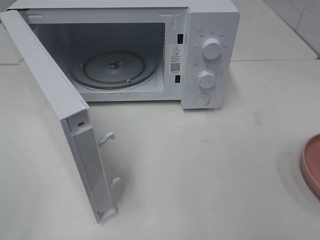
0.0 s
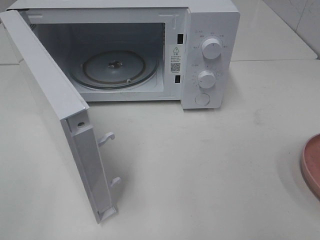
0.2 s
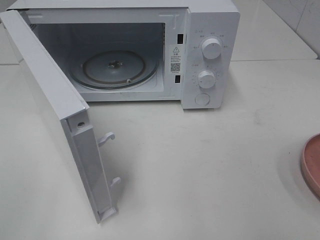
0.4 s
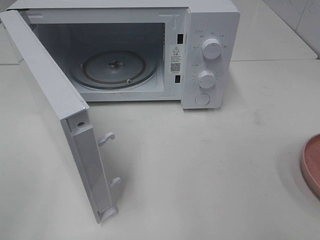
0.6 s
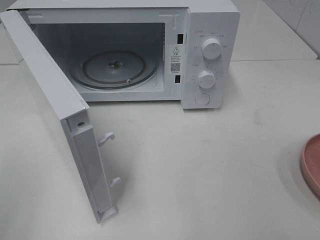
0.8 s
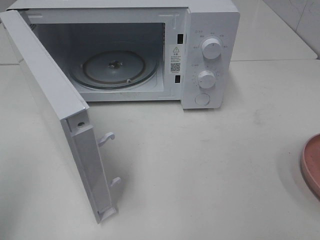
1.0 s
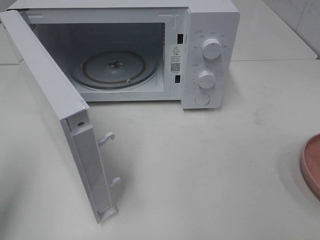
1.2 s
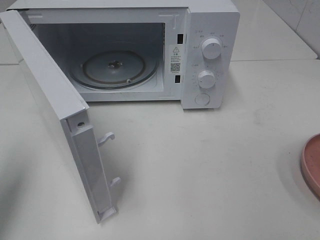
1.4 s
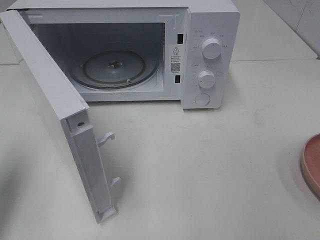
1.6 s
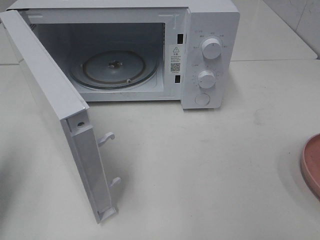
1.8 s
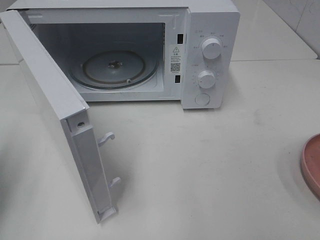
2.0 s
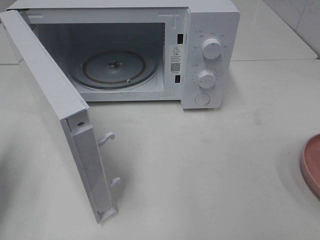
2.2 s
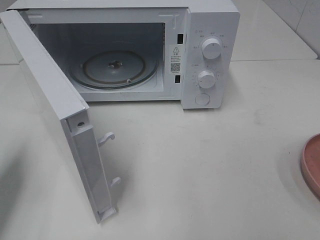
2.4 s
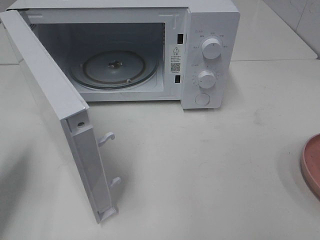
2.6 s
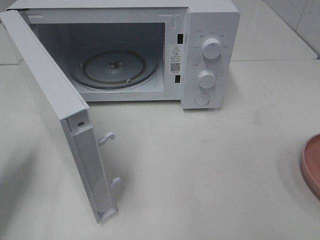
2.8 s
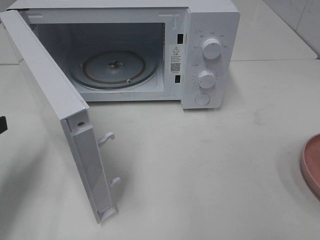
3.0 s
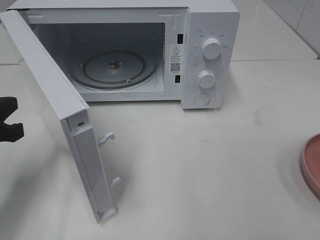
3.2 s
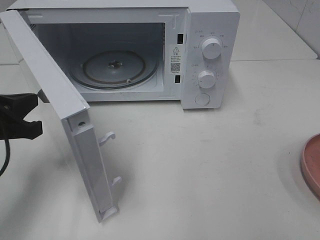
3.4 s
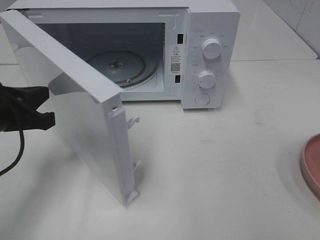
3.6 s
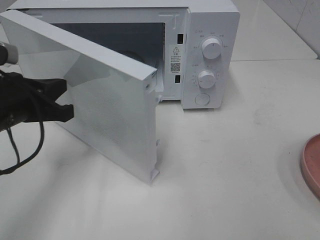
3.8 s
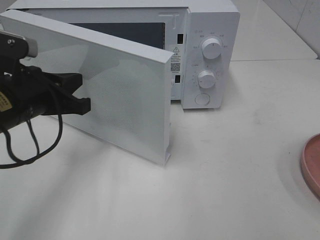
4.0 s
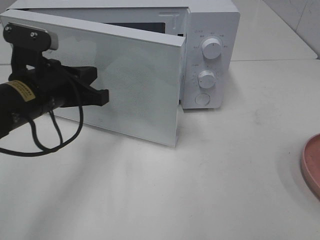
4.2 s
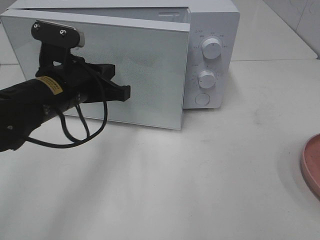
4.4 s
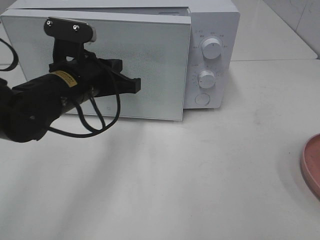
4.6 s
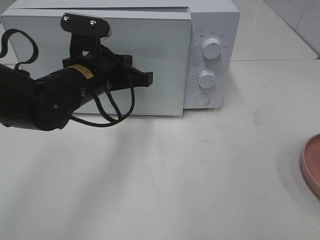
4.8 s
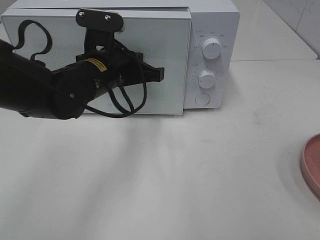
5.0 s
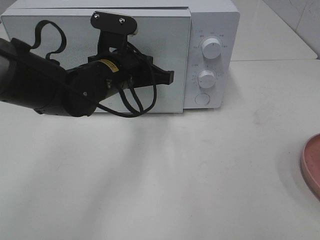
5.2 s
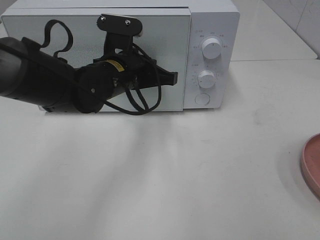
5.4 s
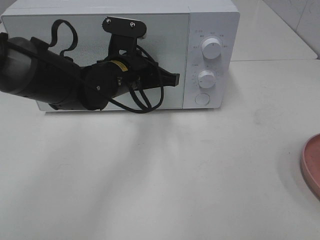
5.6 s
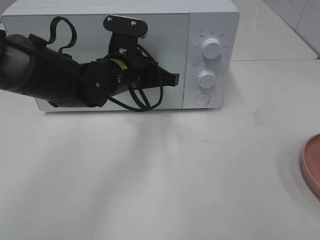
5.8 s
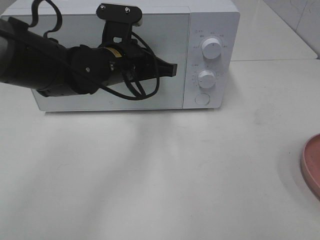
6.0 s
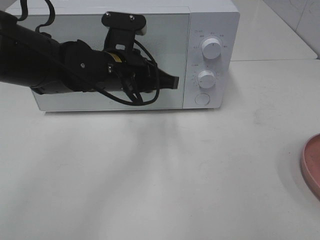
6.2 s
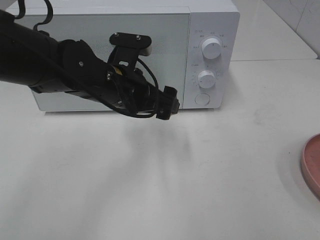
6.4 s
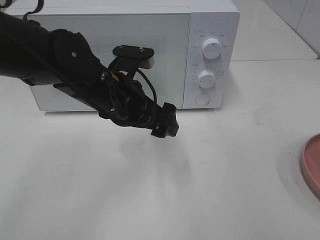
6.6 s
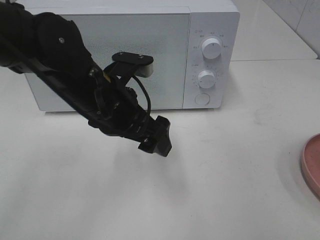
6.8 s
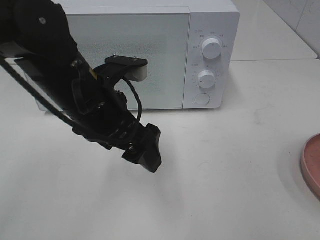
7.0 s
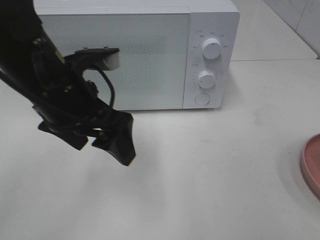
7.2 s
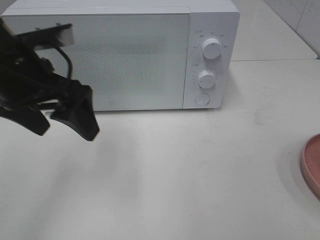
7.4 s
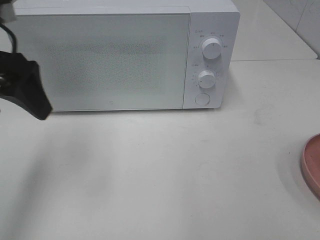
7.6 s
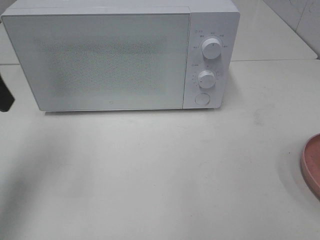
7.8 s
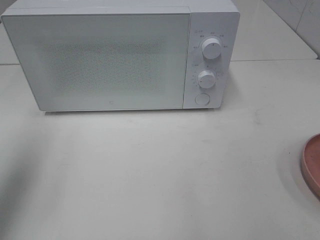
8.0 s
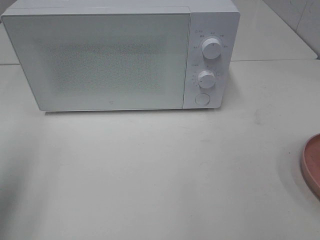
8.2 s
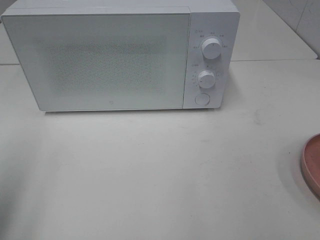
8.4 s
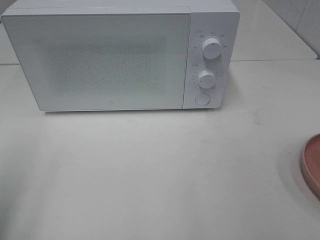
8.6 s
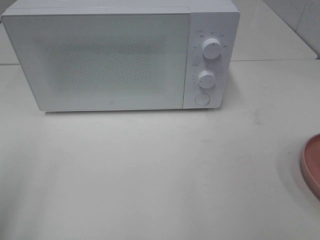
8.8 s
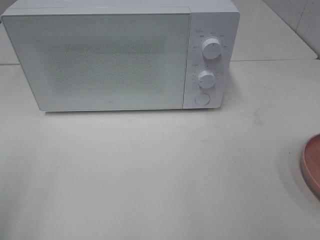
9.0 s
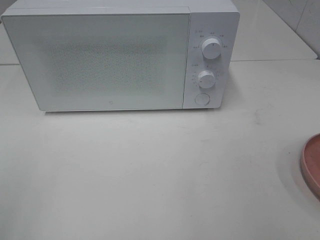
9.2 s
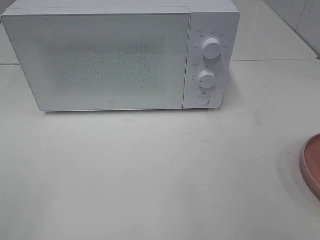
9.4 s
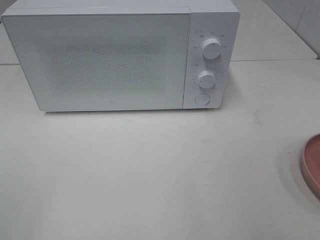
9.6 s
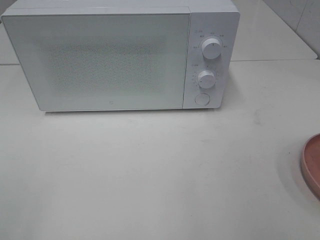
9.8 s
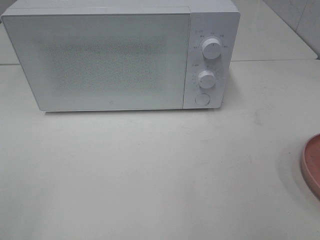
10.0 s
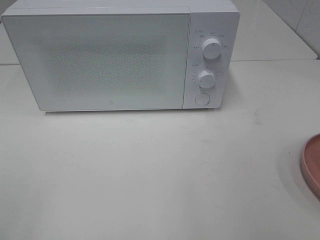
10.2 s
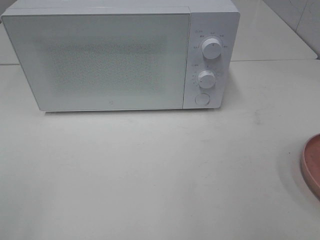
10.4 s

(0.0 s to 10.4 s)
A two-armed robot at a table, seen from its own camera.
Task of the whole recording: Heat the burger.
Step, 0.0 s - 6.0 s: Left hand: close the microwave door.
0.0 s - 1.4 s: The left gripper shifts approximately 15 cm forward, and closes up.
1.4 s - 3.0 s: The left gripper travels downward and forward by about 15 cm.
3.0 s - 4.4 s: The left gripper is displaced to the right and forward by approximately 15 cm.
4.4 s - 6.0 s: The left gripper travels to the right and forward by about 10 cm.
6.0 s - 7.4 s: The left gripper shifts some 15 cm to the left, backward and upward, and opens its fingers.
7.4 s - 9.0 s: The left gripper travels backward and to the left by some 25 cm.

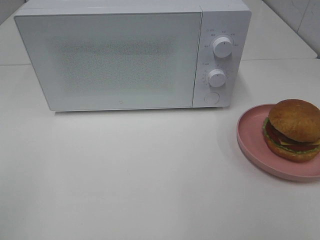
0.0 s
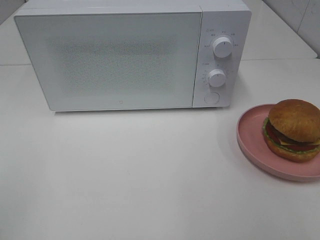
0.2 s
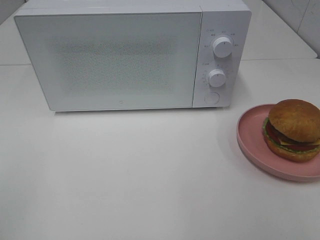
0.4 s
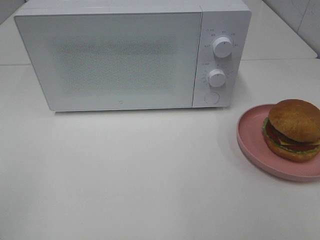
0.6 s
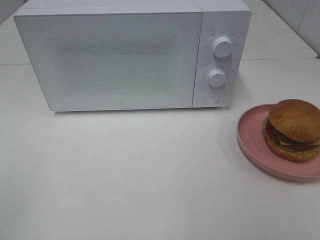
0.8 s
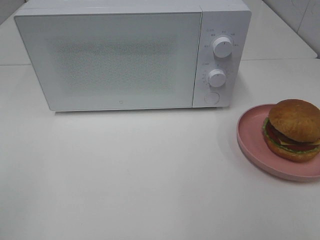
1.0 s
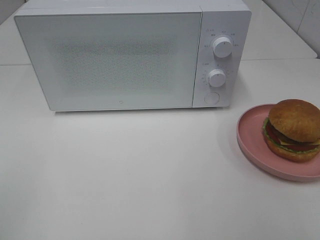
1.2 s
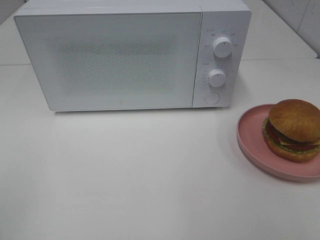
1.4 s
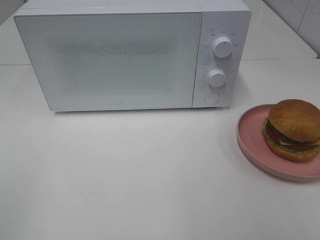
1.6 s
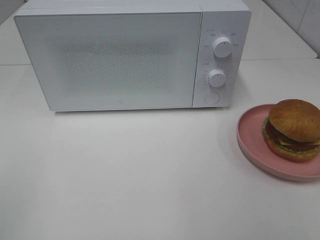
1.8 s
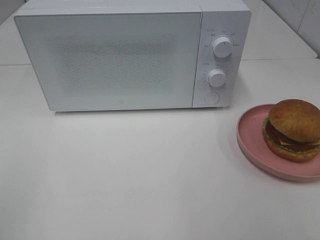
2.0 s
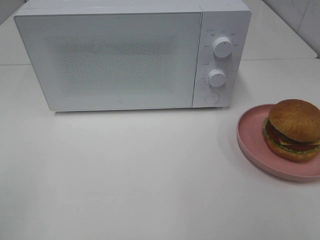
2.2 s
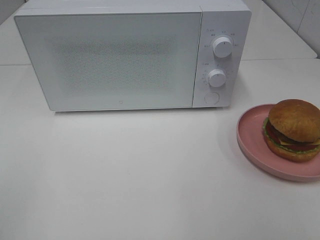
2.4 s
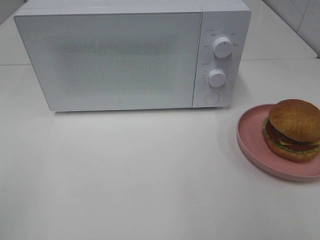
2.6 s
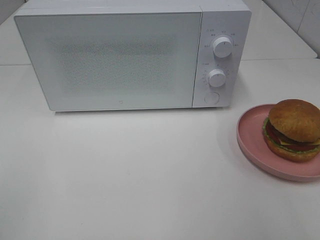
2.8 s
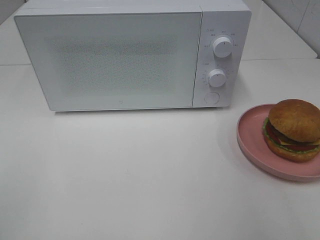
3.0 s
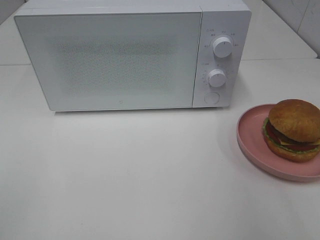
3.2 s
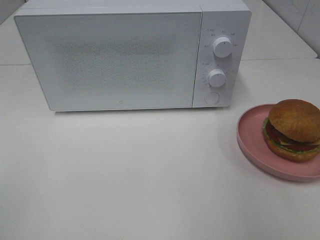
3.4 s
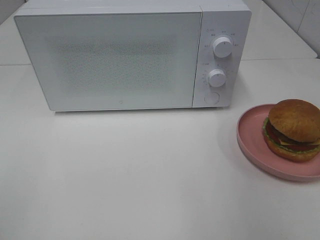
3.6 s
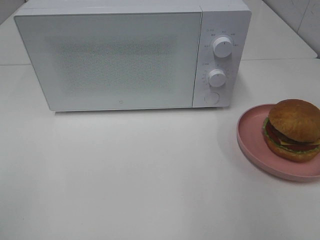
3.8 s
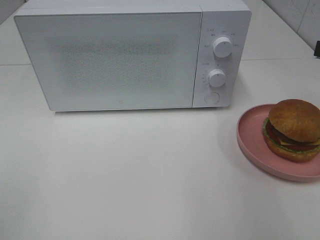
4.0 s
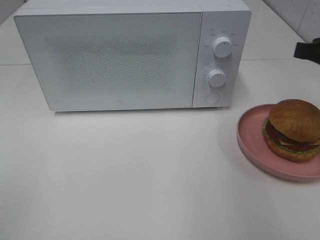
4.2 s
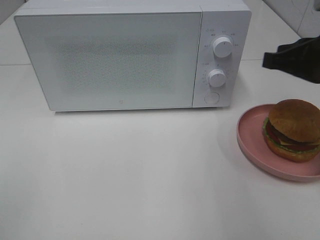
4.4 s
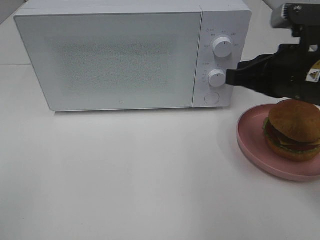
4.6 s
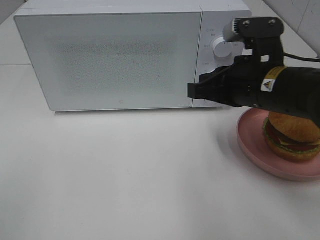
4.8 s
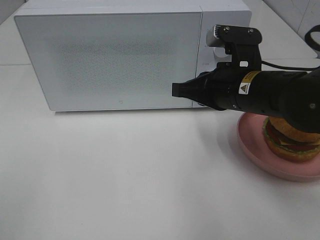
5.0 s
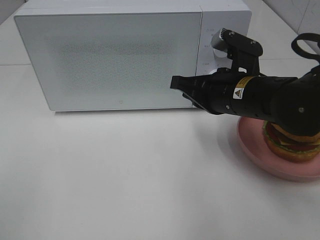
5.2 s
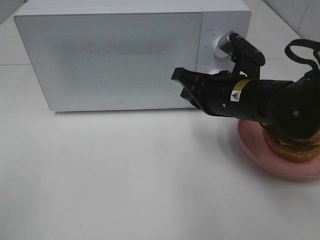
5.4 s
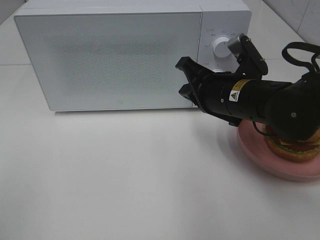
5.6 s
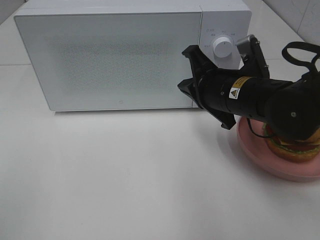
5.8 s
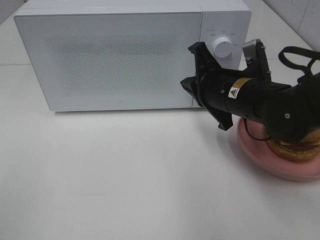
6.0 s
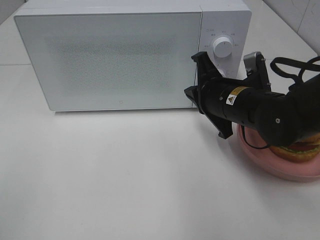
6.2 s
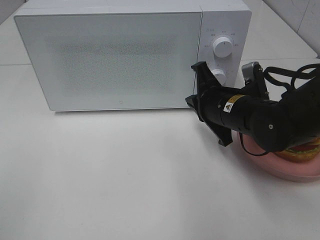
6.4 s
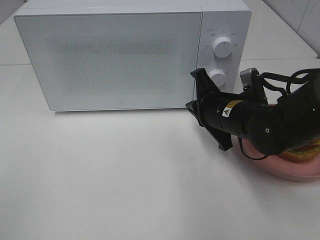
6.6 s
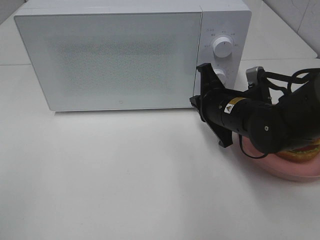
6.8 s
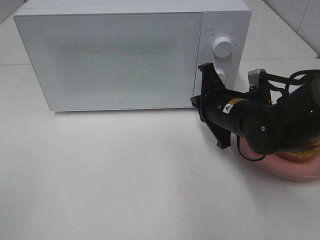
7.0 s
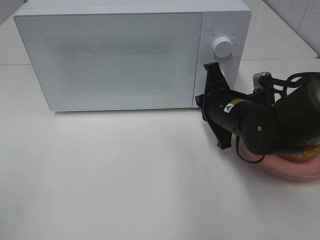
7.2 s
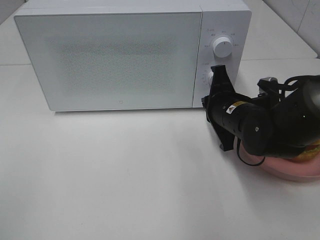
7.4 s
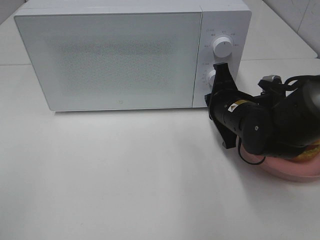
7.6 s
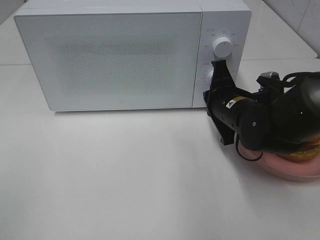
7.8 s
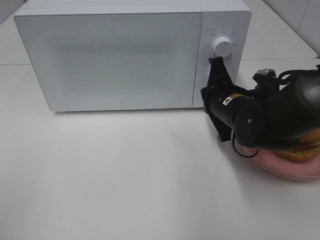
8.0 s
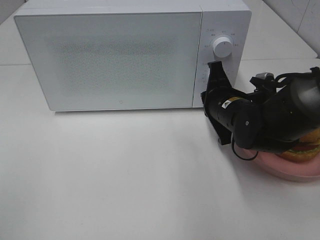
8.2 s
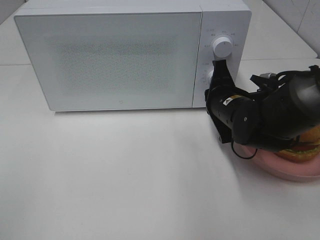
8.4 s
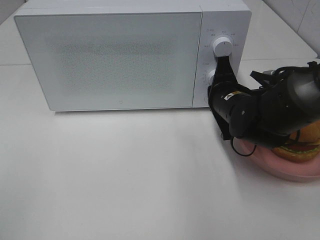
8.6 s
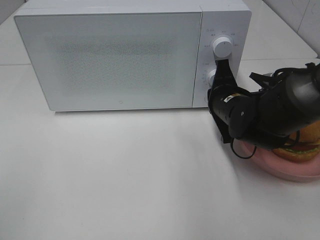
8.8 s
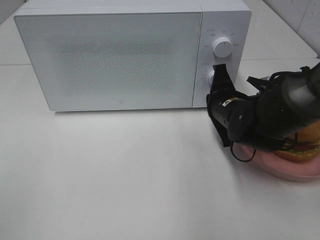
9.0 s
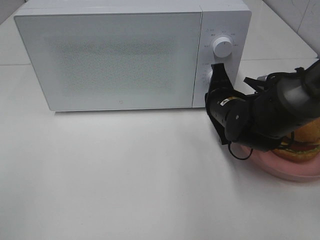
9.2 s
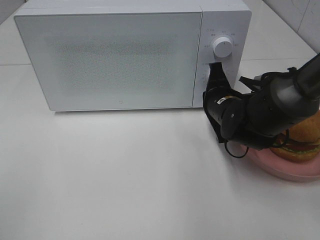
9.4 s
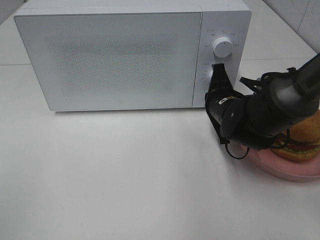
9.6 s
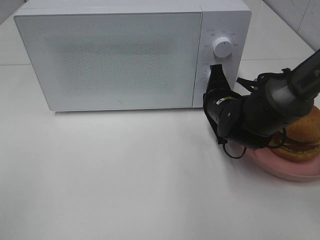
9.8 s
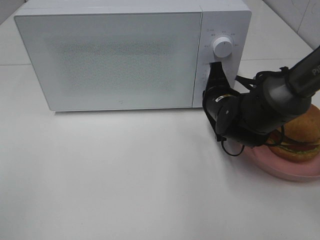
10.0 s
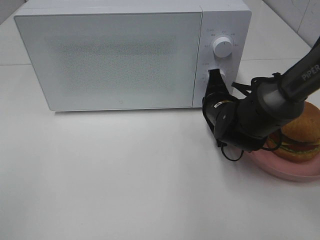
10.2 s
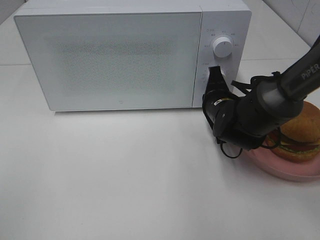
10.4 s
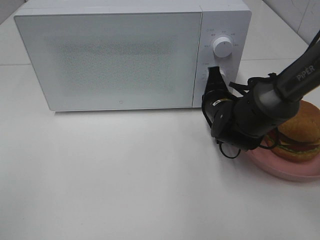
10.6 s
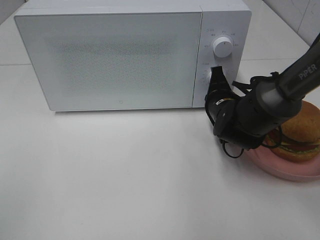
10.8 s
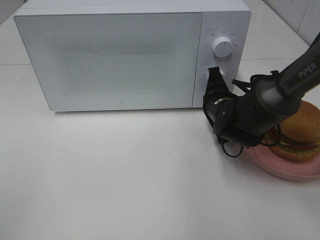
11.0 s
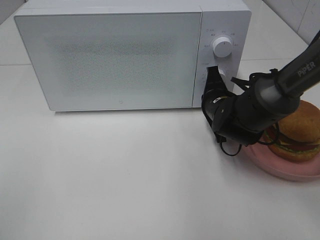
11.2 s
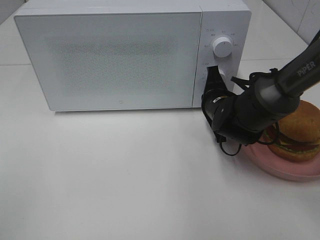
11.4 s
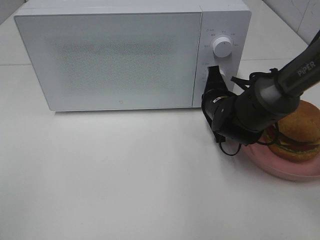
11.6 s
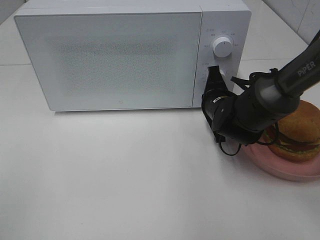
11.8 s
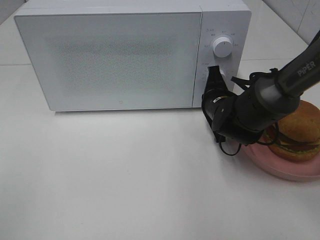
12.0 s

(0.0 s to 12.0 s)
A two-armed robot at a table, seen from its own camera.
Task of the whole recording: Heat the burger.
0.0 s - 1.6 s: Both grippers stay about where they are.
3.0 s - 4.4 s: The right gripper travels forward and downward by about 15 cm, and closes.
4.4 s - 6.0 s: The right gripper shifts some 15 cm to the left and downward.
6.0 s - 7.6 s: The right gripper moves some 5 cm.
7.6 s - 10.4 s: The grippers move only a little.
10.4 s - 12.0 s: The two grippers keep their place.
